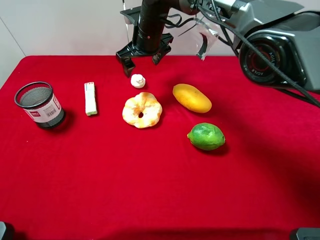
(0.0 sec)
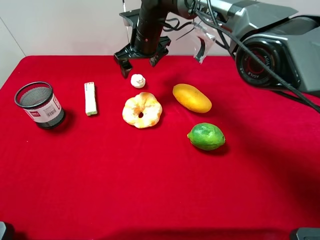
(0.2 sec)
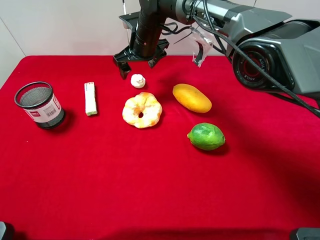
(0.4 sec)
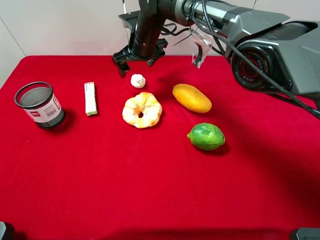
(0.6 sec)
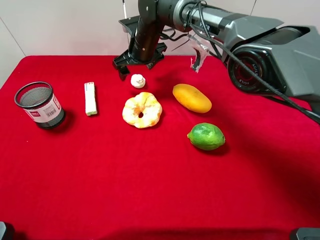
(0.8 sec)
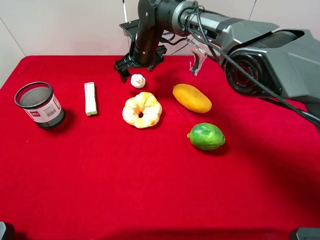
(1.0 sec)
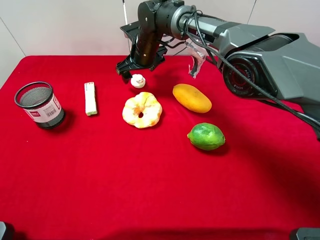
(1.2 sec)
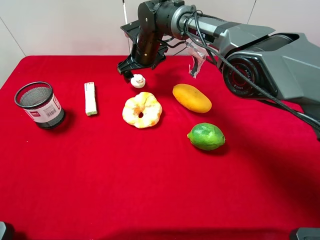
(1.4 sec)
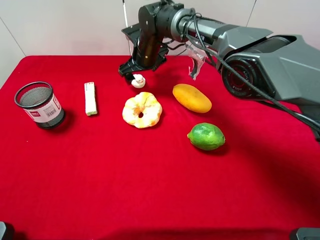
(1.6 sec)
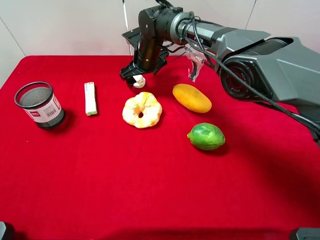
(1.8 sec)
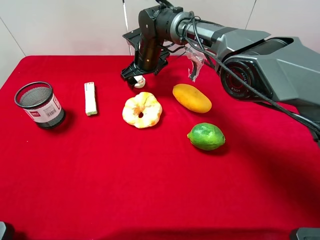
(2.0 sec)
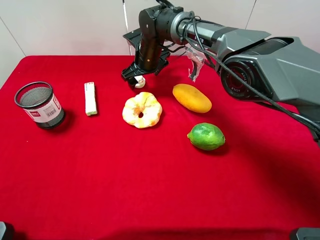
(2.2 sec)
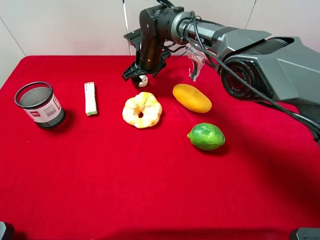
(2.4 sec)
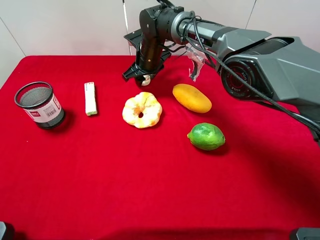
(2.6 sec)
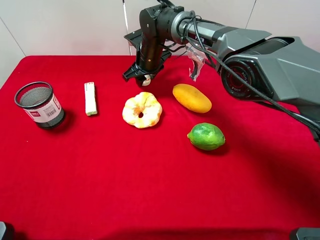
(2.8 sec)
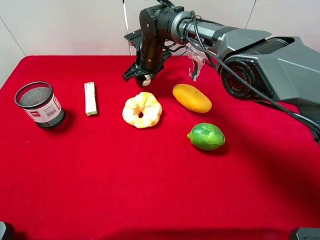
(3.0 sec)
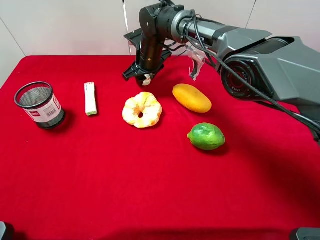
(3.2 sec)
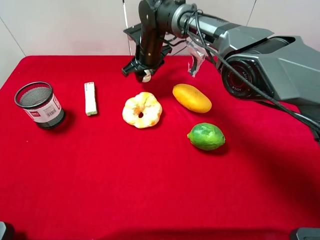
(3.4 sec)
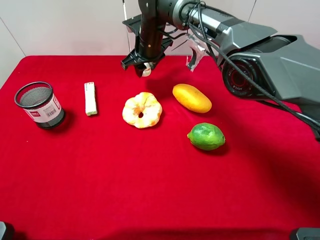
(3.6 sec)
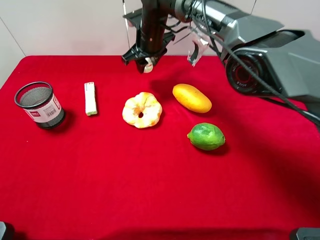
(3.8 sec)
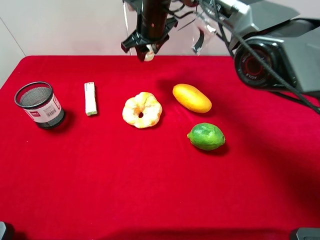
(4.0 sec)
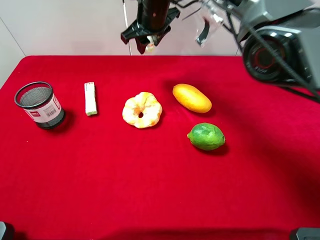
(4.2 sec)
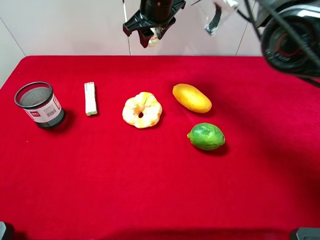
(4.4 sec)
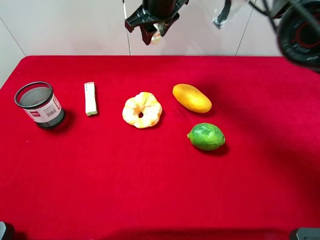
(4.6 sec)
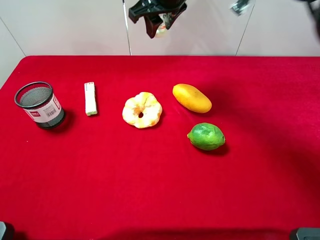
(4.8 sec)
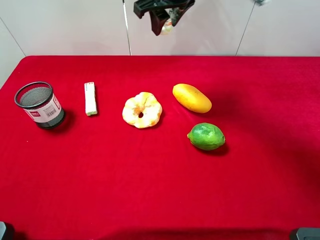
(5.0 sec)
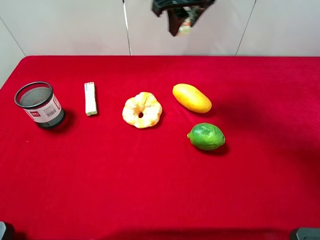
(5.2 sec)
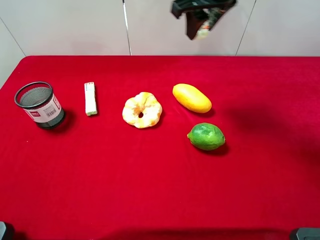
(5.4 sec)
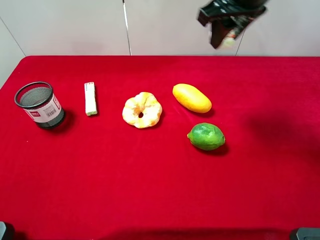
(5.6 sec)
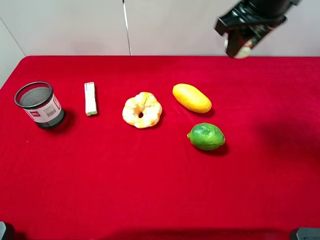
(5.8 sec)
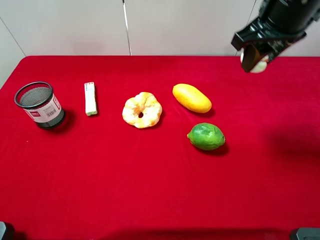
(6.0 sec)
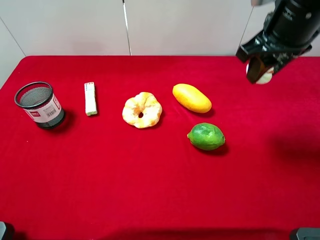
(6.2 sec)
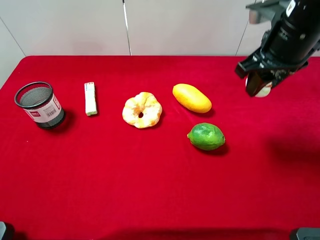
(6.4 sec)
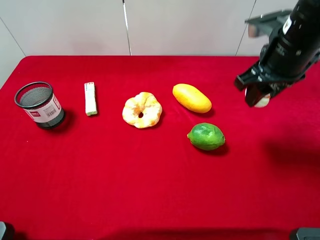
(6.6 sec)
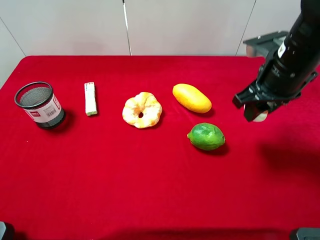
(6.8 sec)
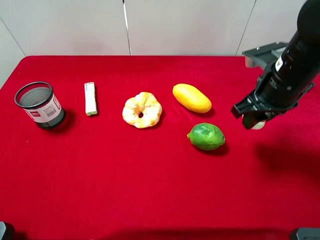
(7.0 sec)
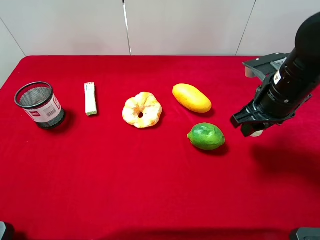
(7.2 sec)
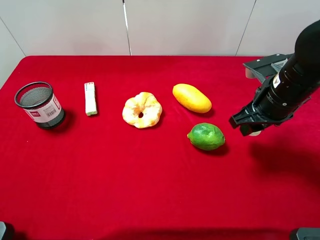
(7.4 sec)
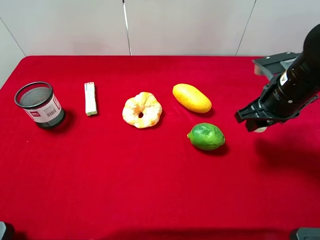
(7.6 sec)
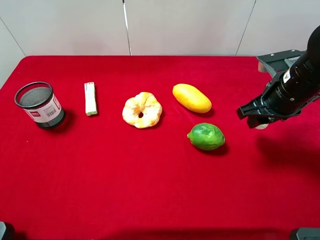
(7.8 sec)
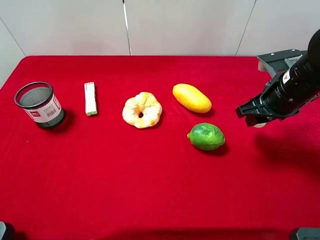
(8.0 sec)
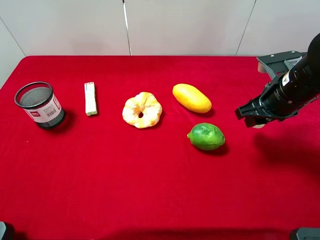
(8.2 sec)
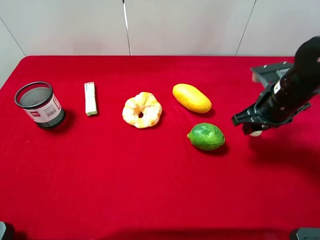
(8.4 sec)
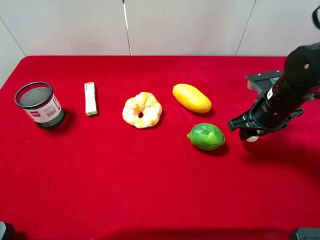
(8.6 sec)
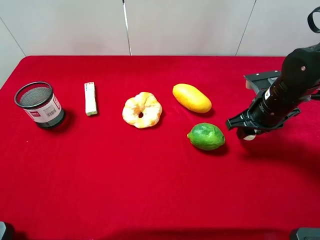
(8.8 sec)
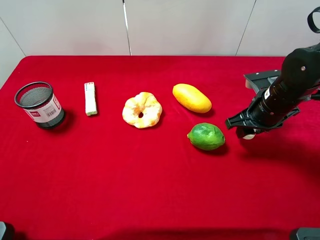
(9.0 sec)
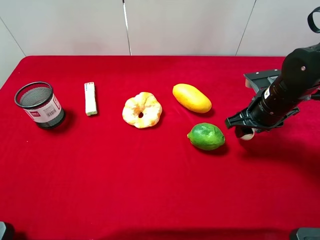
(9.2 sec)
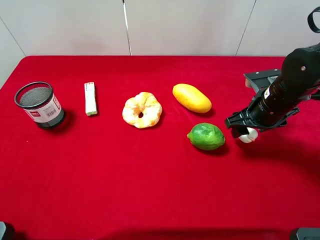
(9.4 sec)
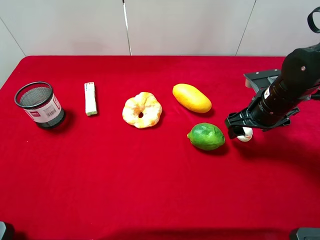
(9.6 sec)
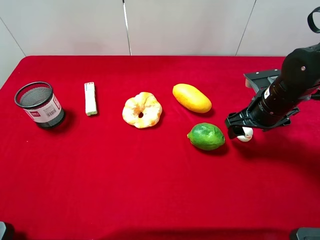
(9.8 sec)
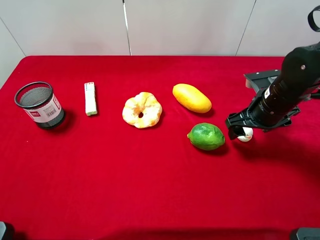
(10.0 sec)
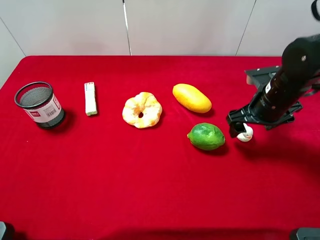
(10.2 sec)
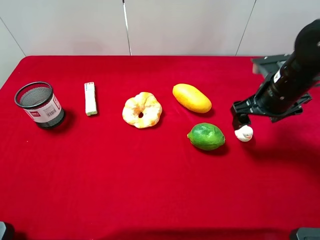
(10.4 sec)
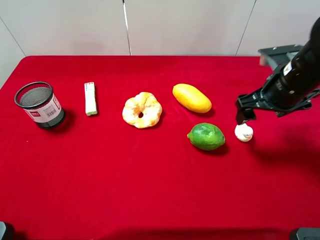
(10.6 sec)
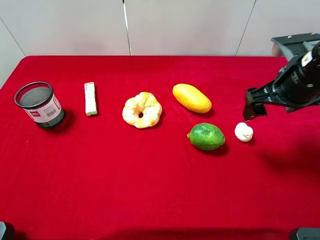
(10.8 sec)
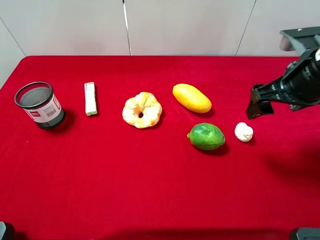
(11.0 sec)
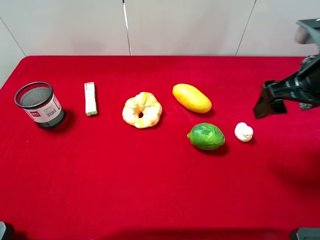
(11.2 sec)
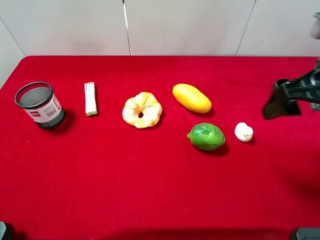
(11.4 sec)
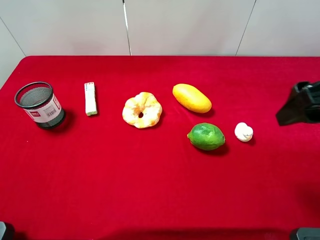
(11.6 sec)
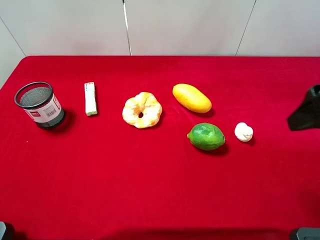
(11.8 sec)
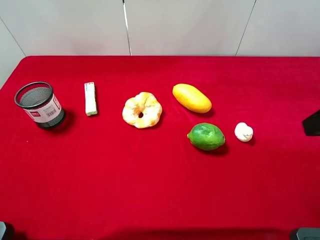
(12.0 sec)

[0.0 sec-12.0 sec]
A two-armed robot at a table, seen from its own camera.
Task of the whole recording: the gripper move the object.
Step, 0.0 sec to 3.0 sec: Grasp the white duck with the right gripper.
Step, 3.2 sec to 10.8 sec: Place the white duck on the table with the right gripper.
0.0 sec to 1.6 sec: The right gripper shifts some 5 cm downward.
1.6 sec to 3.0 sec: The right gripper closes up.
3.0 sec to 4.4 sec: The right gripper is displaced upward by some 15 cm.
4.4 sec to 6.0 sec: The right gripper shifts roughly 25 cm to the right, backward and upward.
6.0 sec to 7.6 sec: The right gripper goes some 15 cm downward and backward.
7.6 sec to 9.0 sec: The right gripper ends up about 5 cm from where it was.
9.0 sec to 10.4 sec: The right gripper opens.
10.4 sec to 12.0 sec: The right gripper moves upward and backward, some 20 cm.
